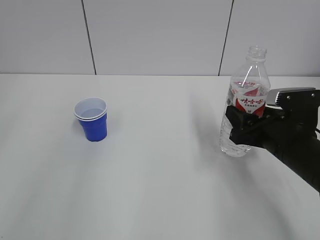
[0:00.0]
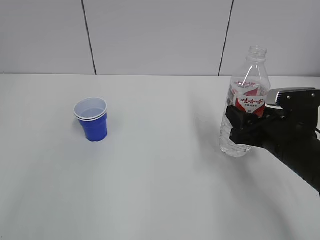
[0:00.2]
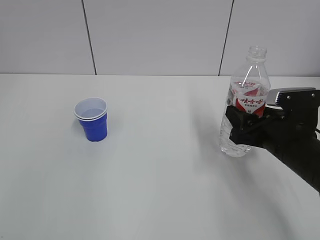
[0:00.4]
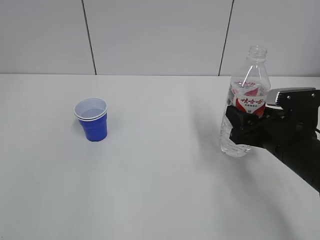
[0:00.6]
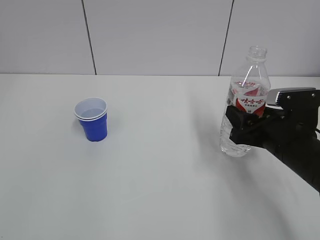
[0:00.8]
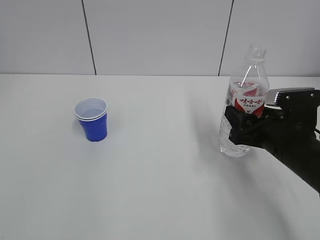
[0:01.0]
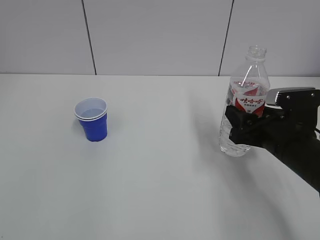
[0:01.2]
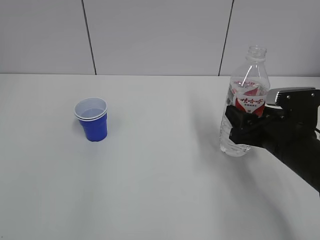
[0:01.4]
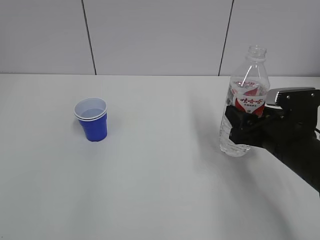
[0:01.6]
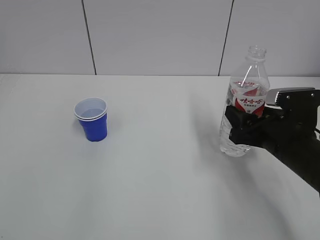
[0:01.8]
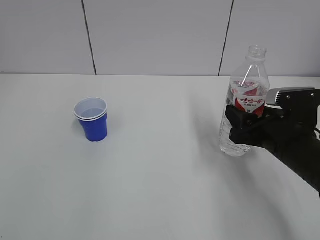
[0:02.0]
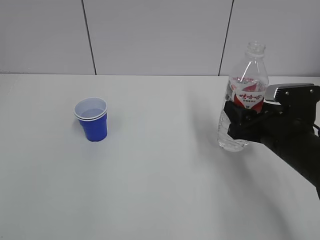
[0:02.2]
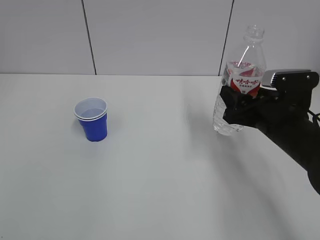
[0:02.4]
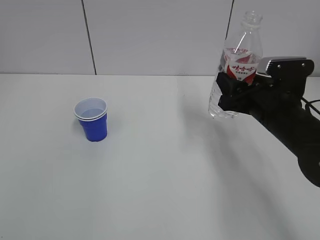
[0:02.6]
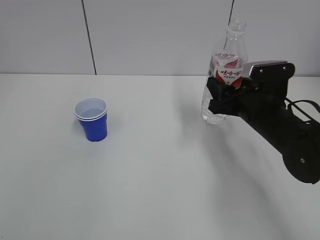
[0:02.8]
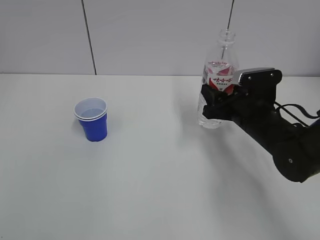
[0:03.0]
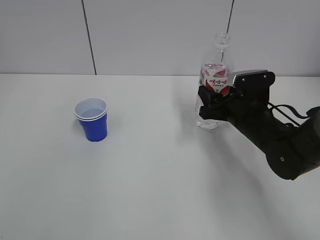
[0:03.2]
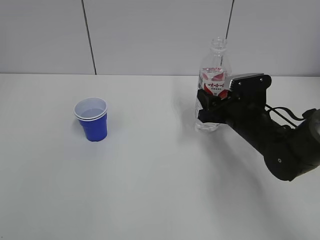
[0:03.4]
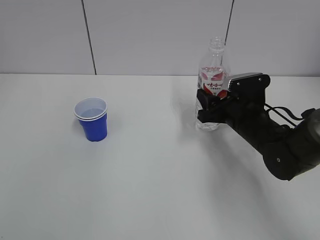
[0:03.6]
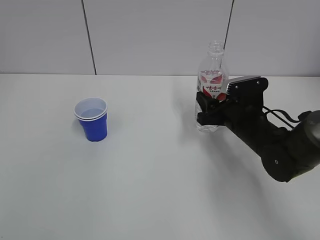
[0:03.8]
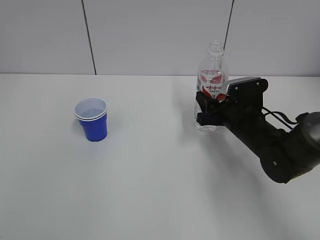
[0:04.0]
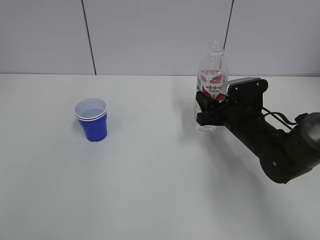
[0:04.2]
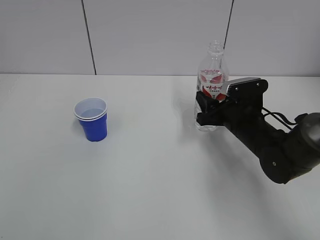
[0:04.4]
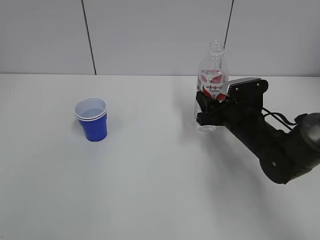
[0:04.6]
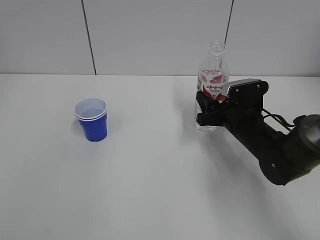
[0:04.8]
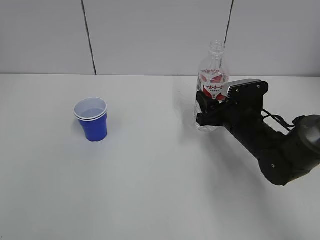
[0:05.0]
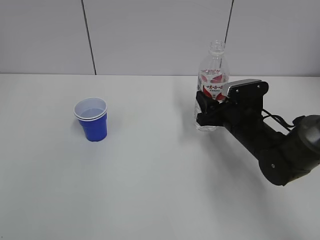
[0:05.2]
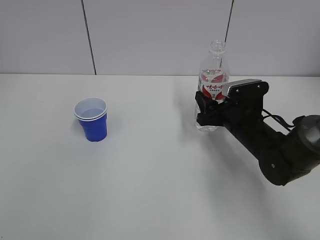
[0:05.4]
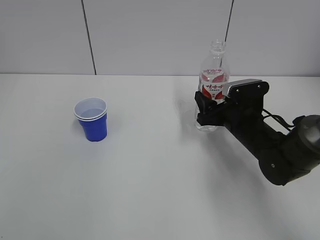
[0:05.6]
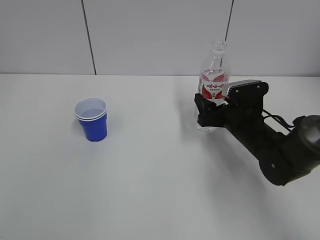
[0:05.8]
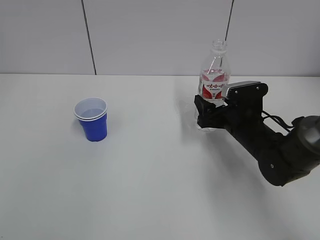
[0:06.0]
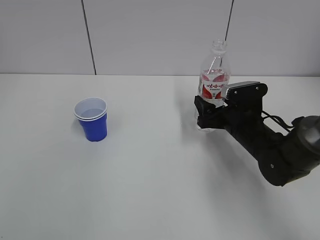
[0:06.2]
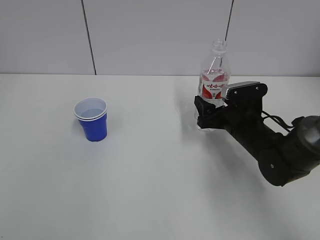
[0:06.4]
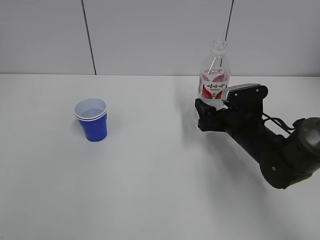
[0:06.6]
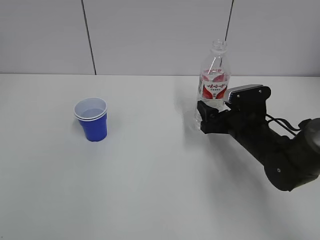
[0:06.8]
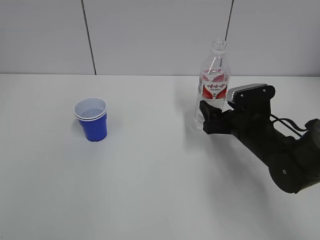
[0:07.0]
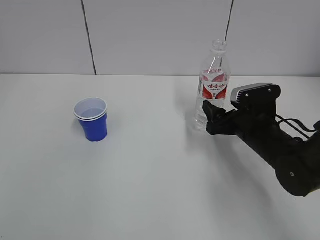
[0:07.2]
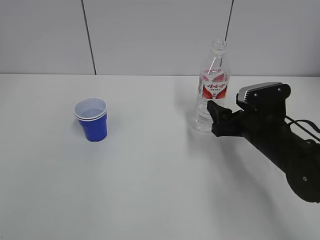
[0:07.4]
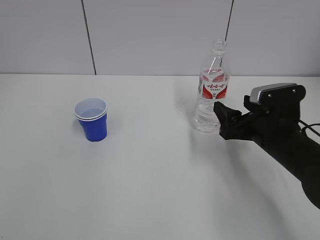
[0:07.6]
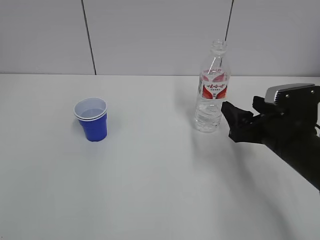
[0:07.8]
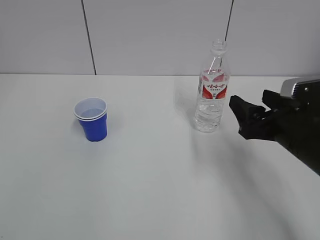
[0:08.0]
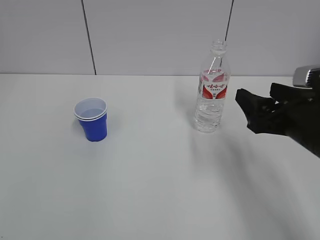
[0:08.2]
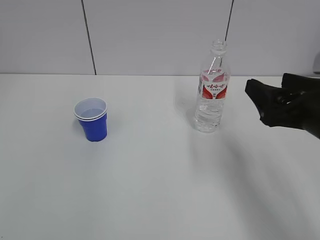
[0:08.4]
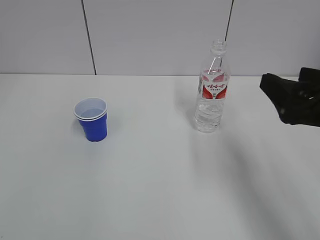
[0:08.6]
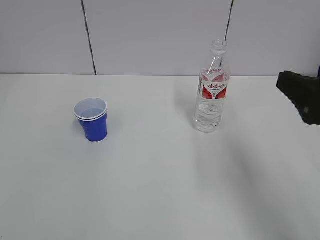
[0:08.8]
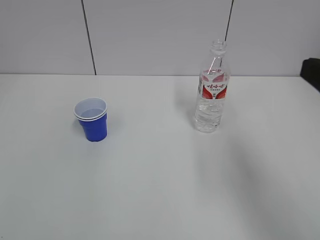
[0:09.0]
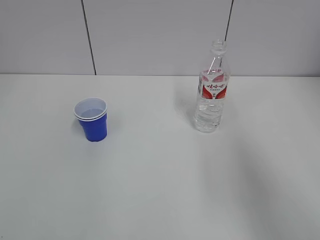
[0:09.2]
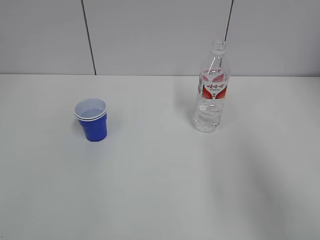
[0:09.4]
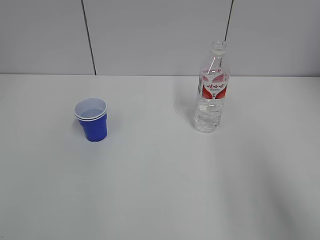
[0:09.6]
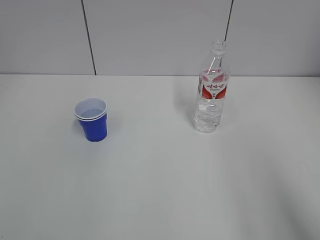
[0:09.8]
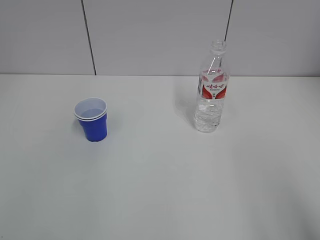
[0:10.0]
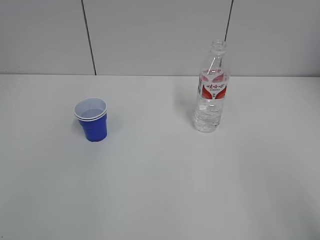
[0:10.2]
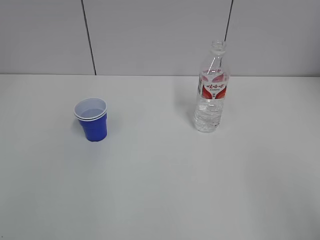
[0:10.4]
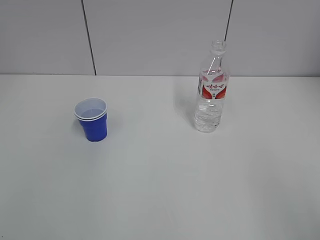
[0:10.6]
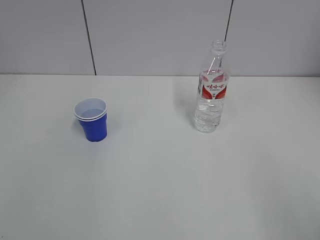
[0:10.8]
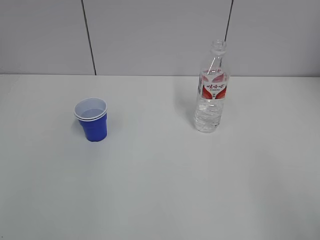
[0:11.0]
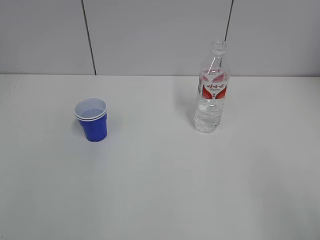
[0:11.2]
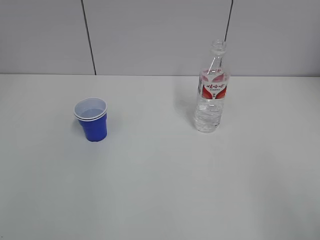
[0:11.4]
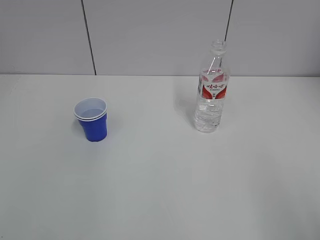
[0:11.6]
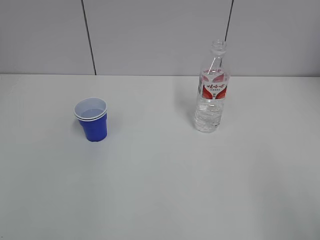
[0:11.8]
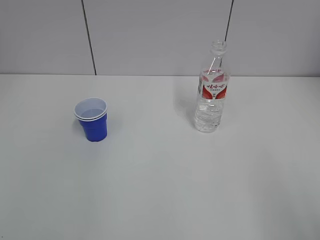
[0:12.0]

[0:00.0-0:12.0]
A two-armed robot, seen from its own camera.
Step, 0:00.0 to 0:07.2: Place the water bottle with the right hand.
0:01.6 to 0:03.0: The right gripper is displaced forward by approximately 10 cm.
0:03.0 to 0:04.4: The grippers move only a little.
0:04.4 to 0:06.0: The right gripper opens.
0:06.0 to 0:07.6: The right gripper moves backward, some 5 cm.
0:07.6 to 0:09.0: The right gripper travels upward and backward by approximately 25 cm.
0:09.0 to 0:10.4: The right gripper is displaced backward by some 20 cm.

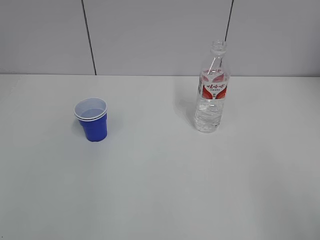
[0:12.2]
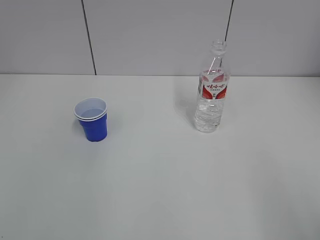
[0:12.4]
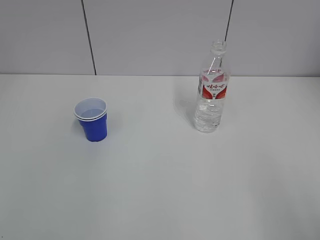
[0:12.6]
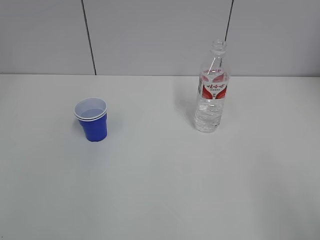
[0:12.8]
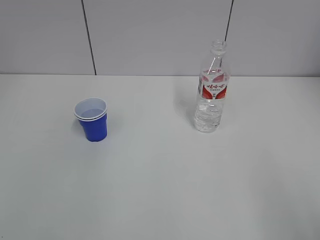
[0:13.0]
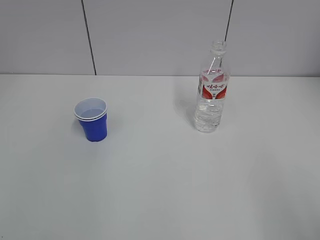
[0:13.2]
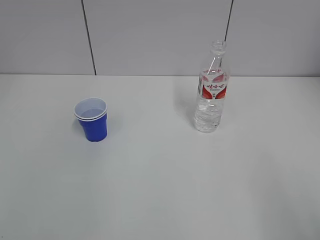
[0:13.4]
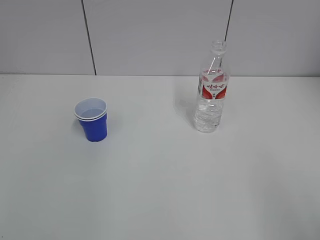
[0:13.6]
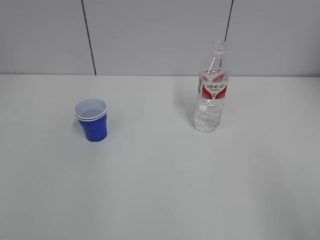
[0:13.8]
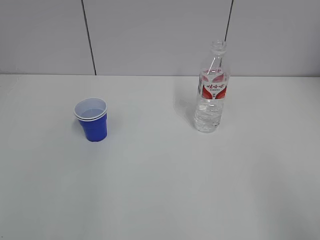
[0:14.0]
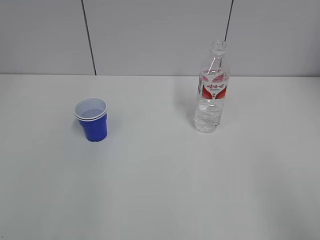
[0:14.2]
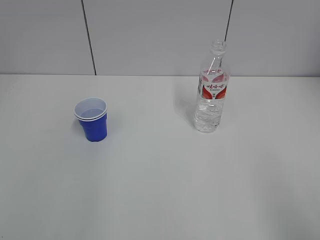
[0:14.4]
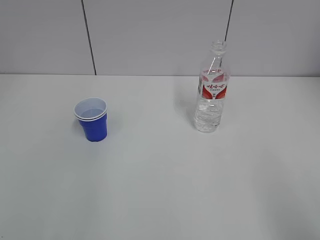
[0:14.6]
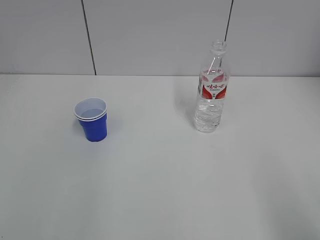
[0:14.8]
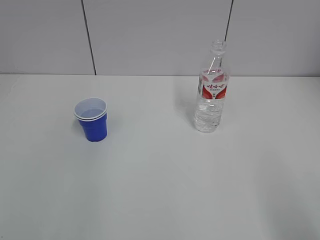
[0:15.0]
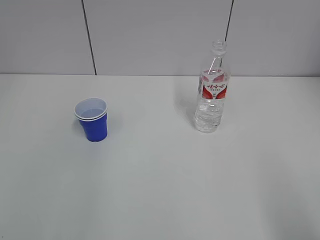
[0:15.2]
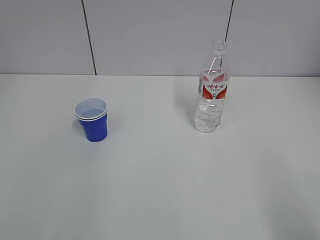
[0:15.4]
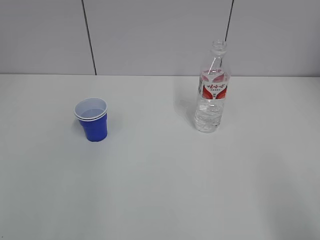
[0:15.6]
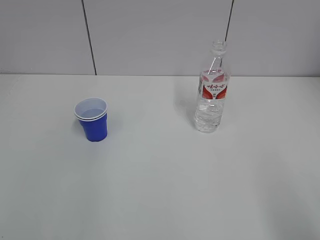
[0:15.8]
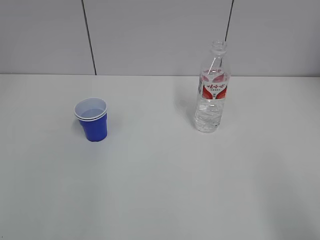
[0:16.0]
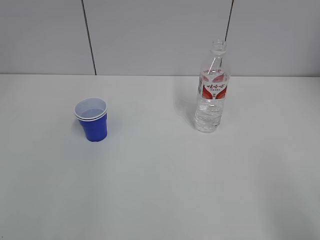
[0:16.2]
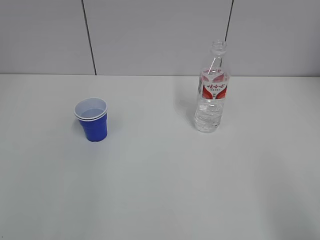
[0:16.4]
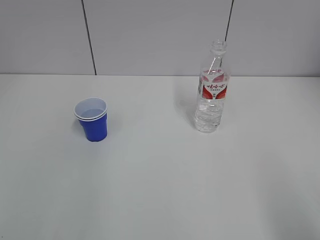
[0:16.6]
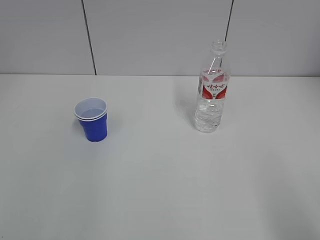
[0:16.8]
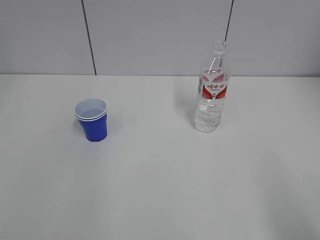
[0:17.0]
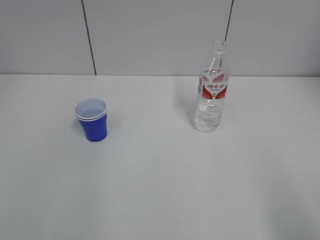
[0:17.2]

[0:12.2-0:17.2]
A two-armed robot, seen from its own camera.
0:15.6 to 0:17.2: Both grippers stay put.

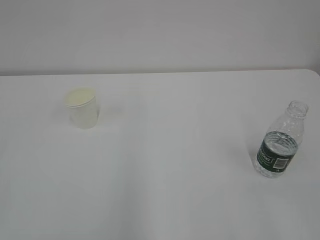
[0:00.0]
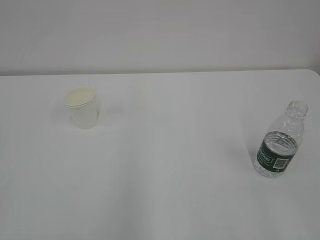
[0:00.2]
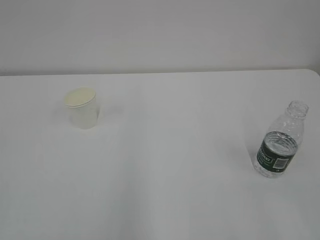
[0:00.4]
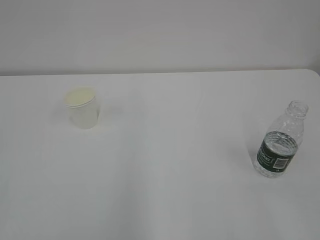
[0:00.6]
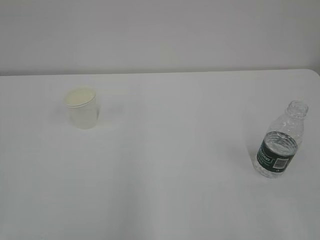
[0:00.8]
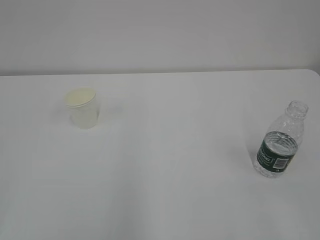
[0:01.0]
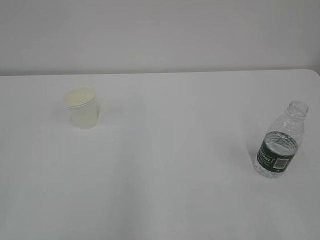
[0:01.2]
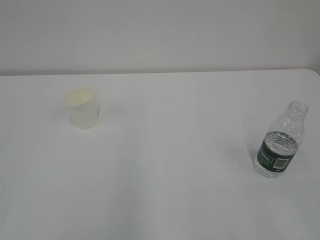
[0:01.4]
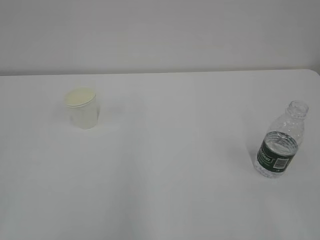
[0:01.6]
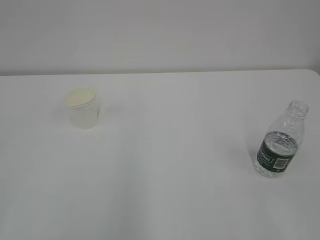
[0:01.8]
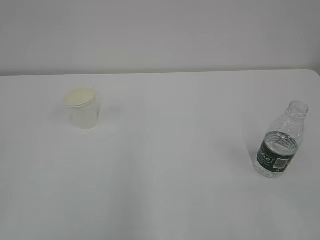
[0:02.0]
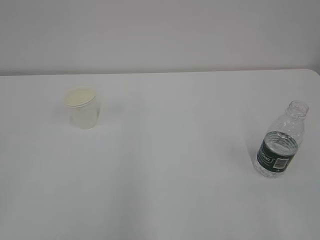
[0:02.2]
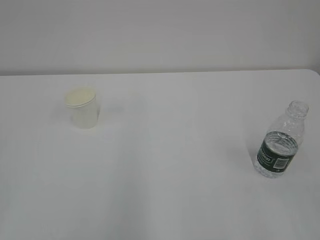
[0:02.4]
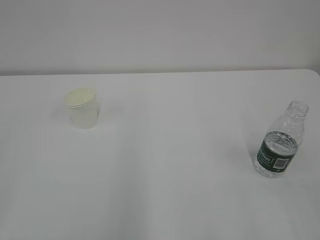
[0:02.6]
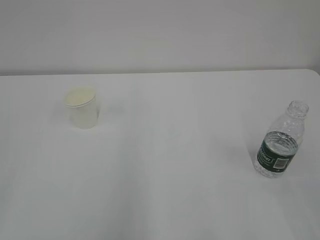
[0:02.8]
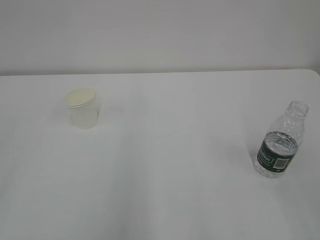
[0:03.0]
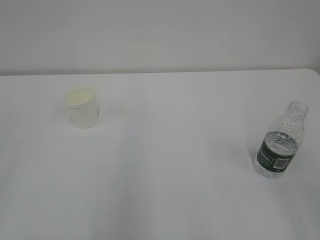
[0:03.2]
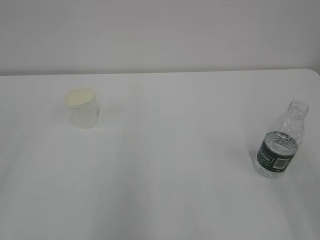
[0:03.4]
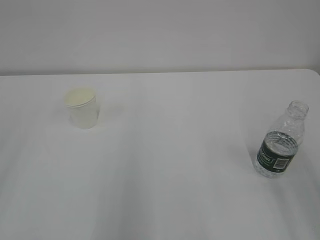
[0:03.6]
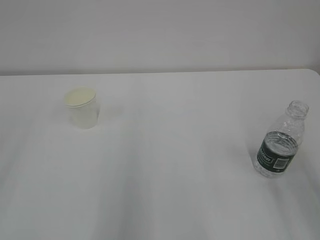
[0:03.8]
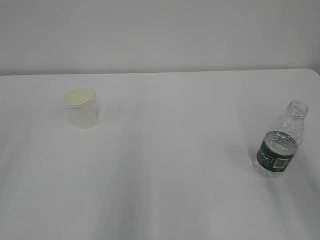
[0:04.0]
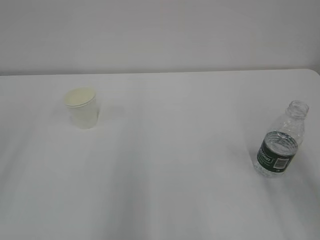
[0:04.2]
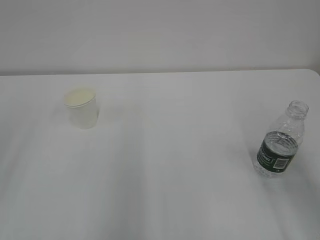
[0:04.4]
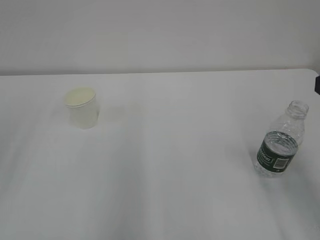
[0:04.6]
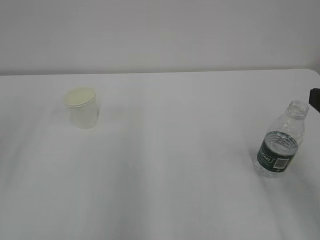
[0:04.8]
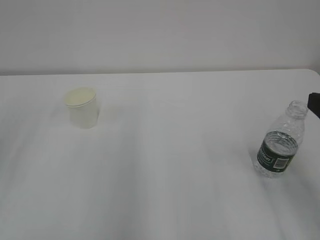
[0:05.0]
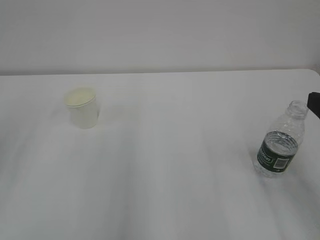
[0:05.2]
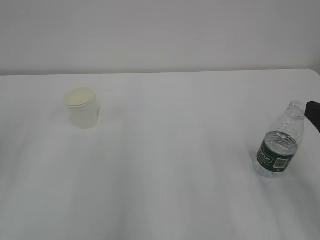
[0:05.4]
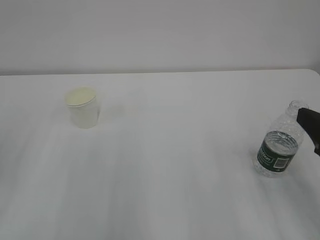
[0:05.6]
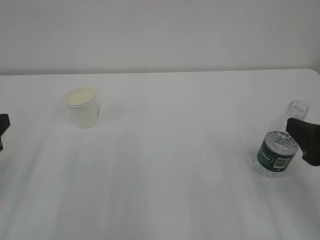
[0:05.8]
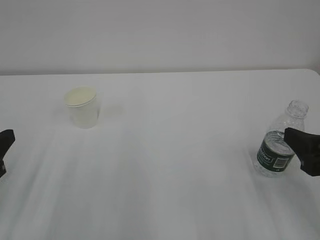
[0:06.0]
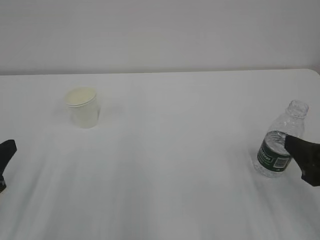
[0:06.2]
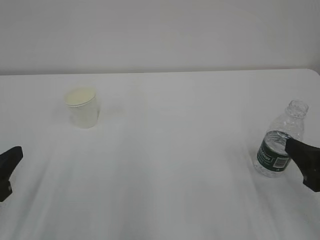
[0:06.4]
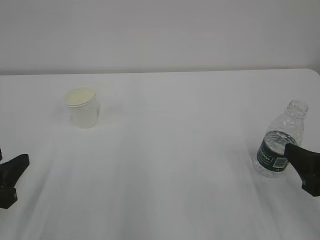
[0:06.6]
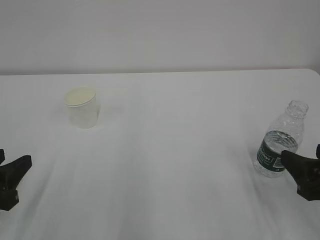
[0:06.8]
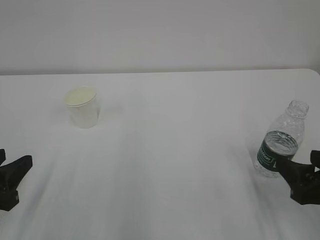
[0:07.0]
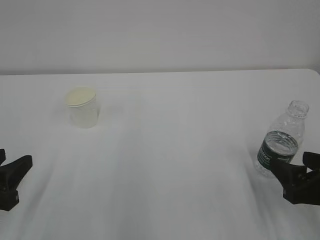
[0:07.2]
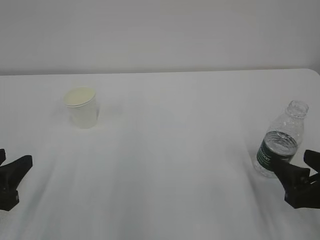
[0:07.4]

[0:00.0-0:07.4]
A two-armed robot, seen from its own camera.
0:04.4 to 0:06.0: The right gripper travels downward by approximately 10 cm.
0:06.0 to 0:07.4: The right gripper is displaced downward by some 5 cm.
